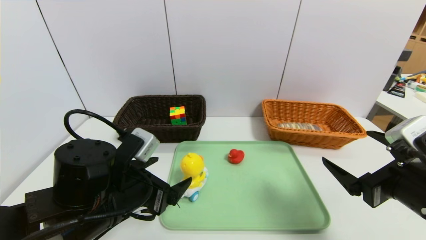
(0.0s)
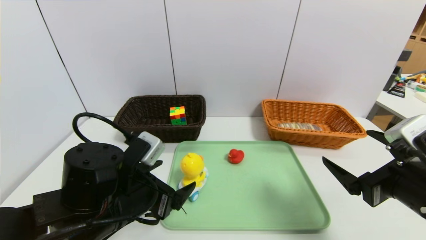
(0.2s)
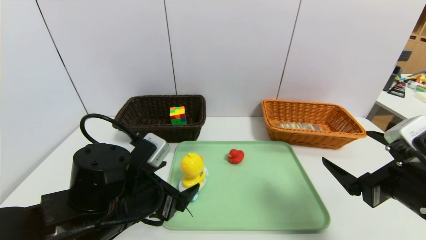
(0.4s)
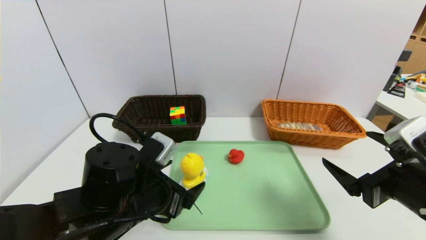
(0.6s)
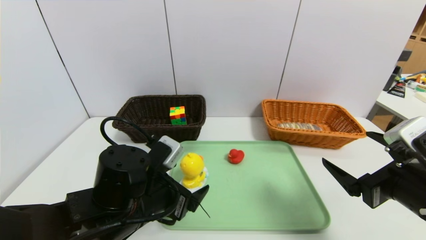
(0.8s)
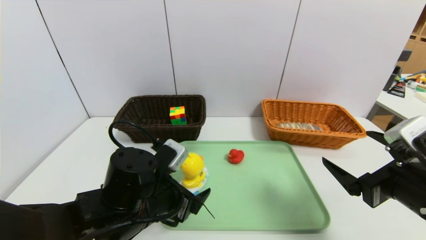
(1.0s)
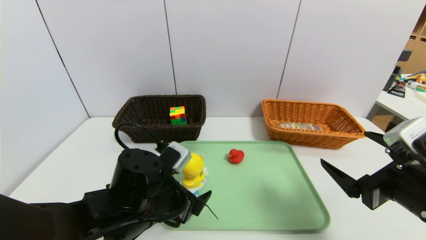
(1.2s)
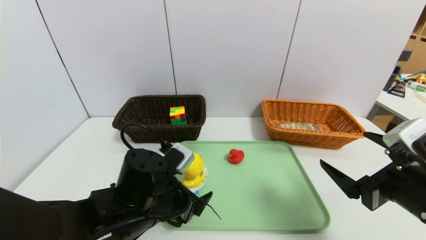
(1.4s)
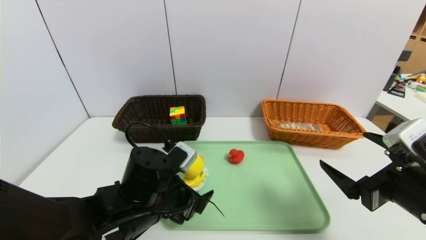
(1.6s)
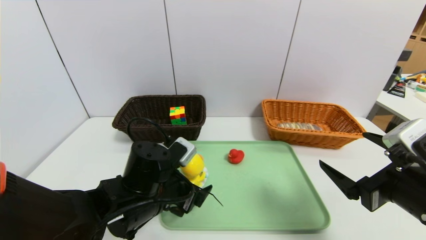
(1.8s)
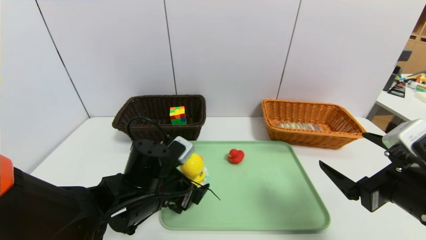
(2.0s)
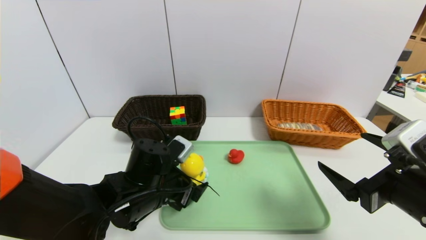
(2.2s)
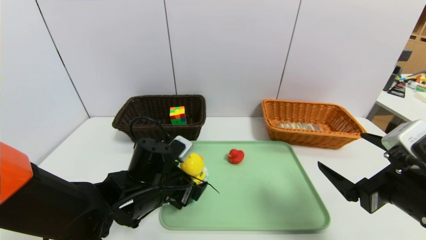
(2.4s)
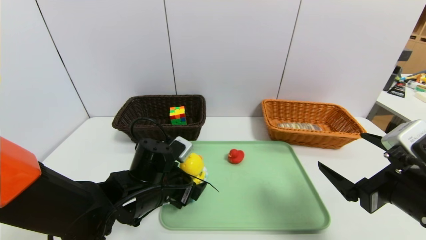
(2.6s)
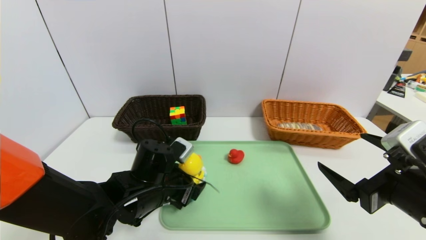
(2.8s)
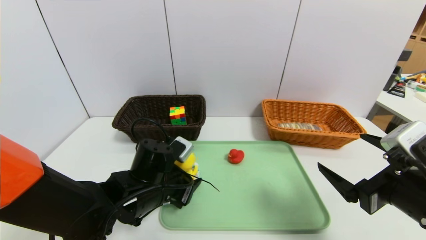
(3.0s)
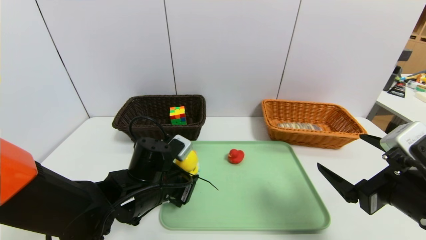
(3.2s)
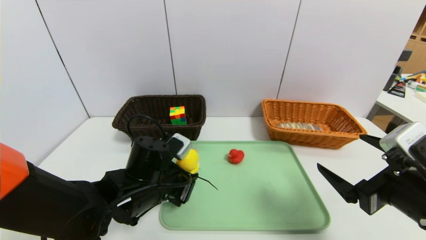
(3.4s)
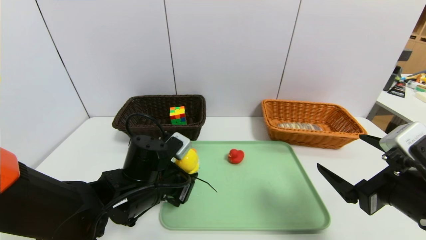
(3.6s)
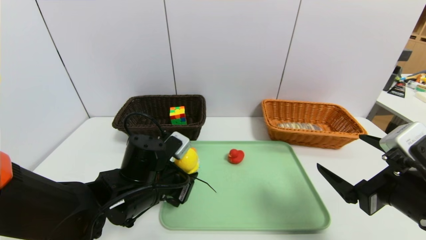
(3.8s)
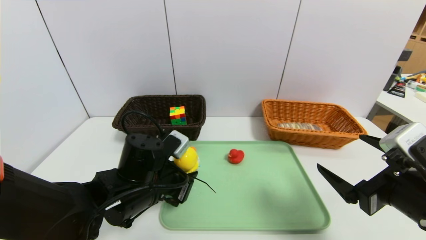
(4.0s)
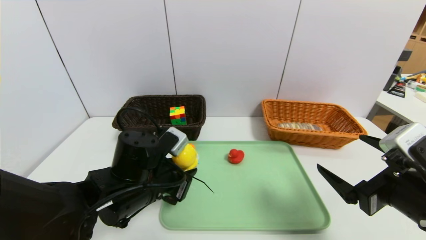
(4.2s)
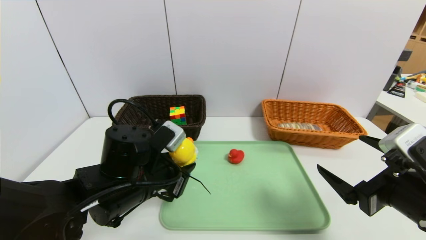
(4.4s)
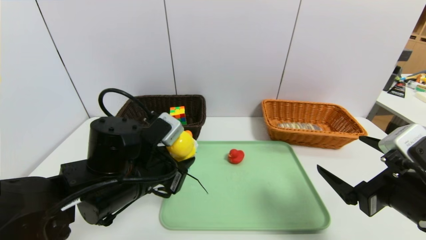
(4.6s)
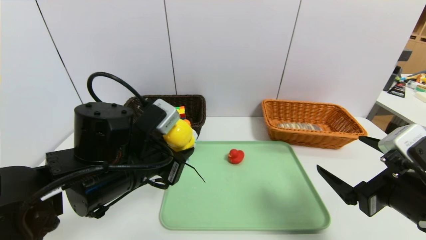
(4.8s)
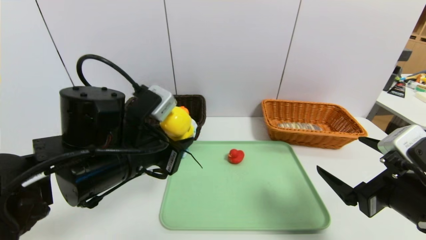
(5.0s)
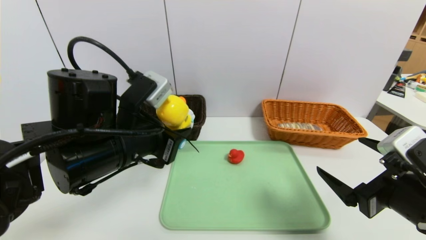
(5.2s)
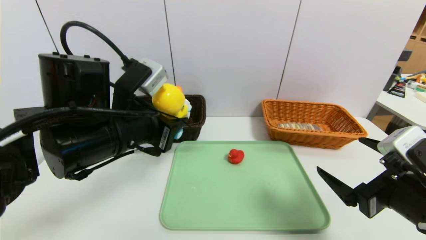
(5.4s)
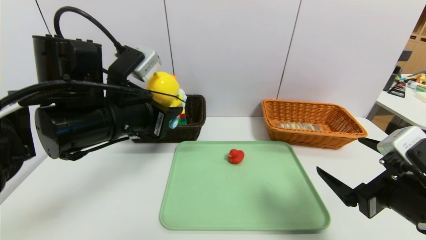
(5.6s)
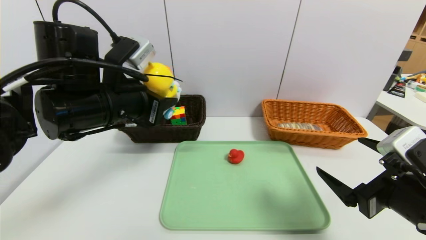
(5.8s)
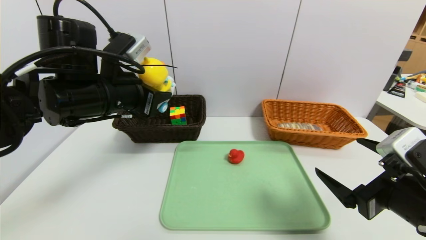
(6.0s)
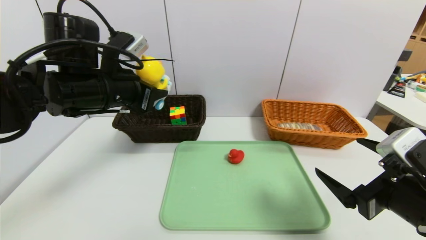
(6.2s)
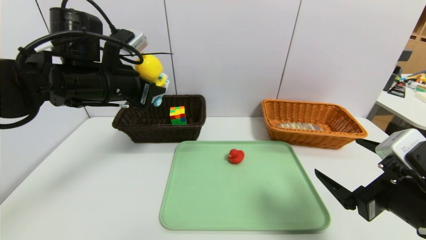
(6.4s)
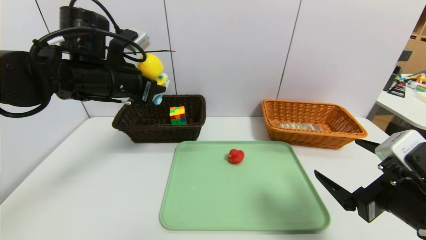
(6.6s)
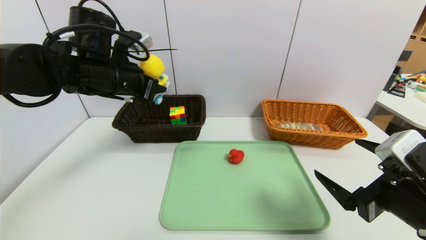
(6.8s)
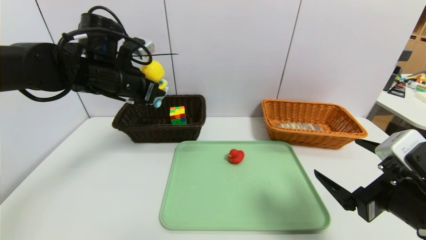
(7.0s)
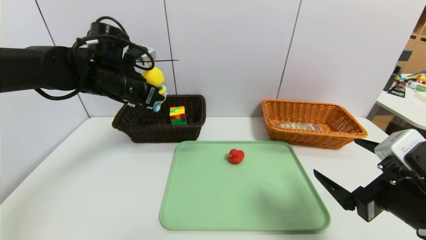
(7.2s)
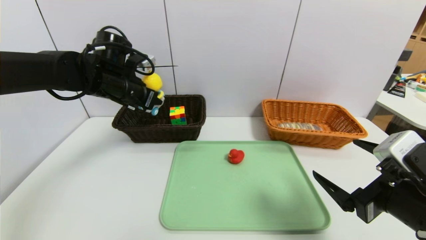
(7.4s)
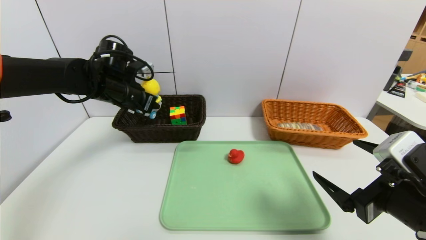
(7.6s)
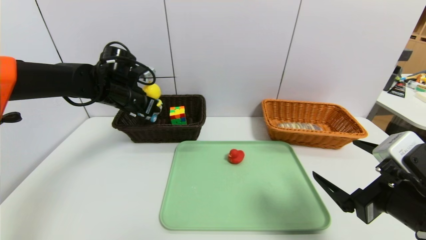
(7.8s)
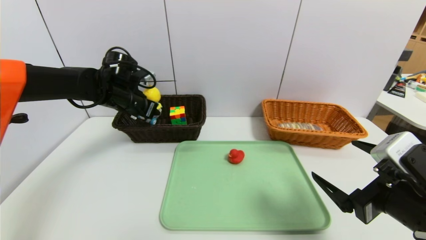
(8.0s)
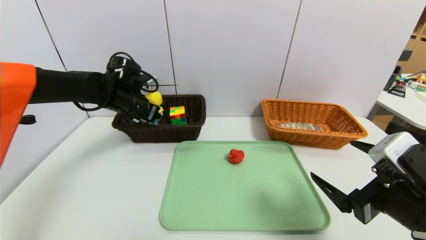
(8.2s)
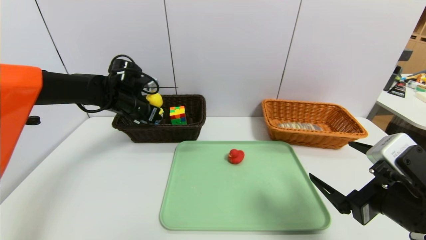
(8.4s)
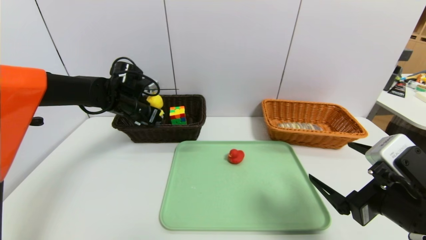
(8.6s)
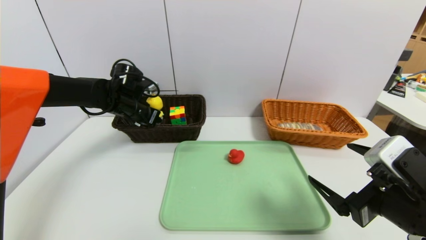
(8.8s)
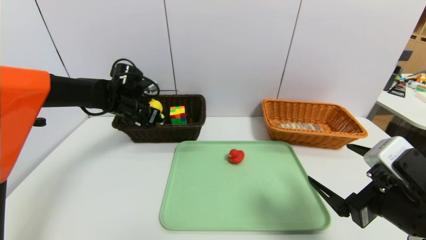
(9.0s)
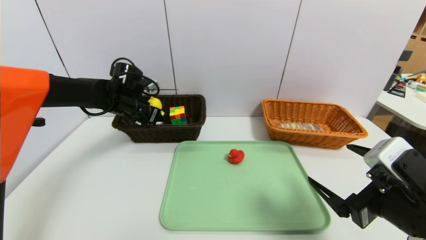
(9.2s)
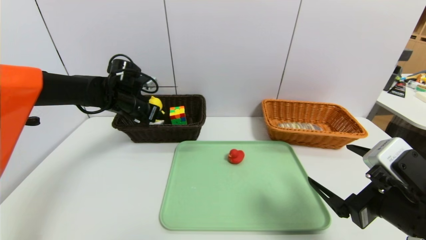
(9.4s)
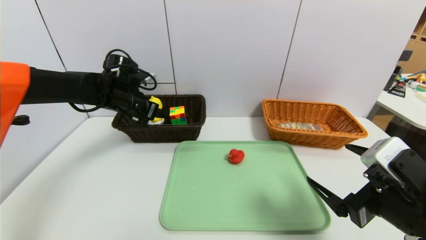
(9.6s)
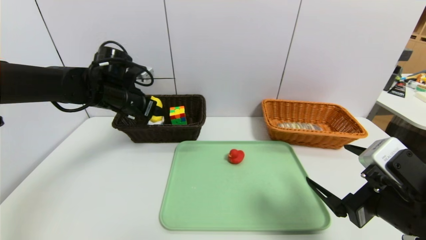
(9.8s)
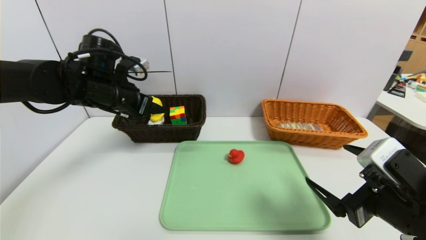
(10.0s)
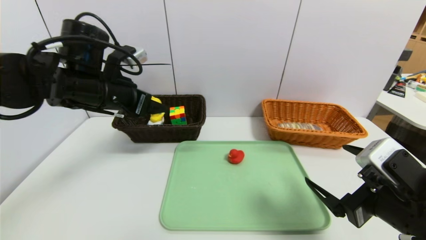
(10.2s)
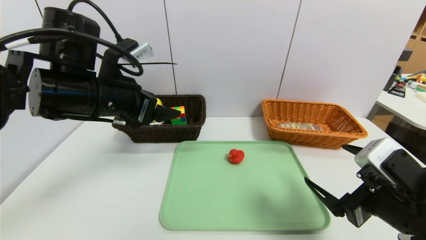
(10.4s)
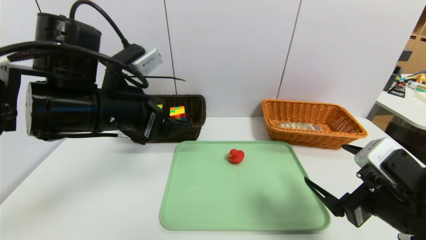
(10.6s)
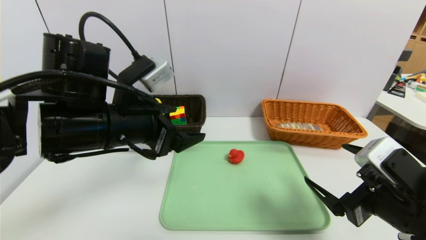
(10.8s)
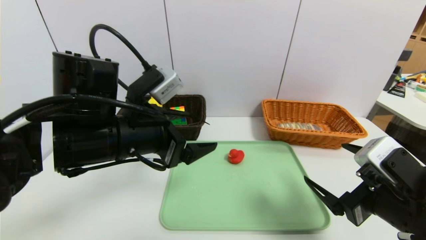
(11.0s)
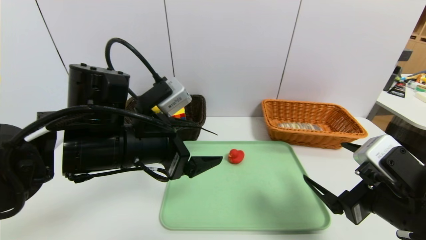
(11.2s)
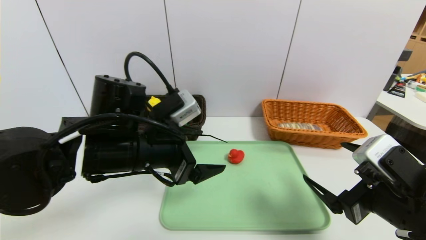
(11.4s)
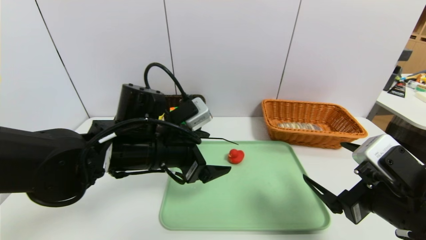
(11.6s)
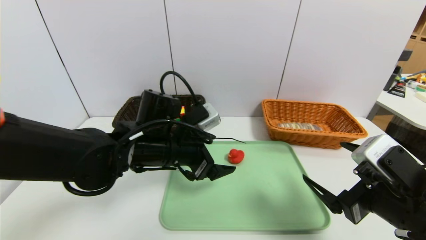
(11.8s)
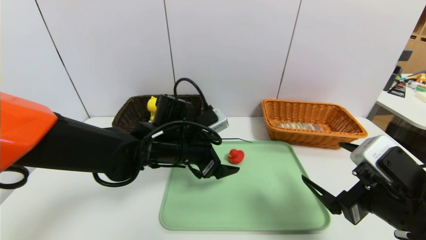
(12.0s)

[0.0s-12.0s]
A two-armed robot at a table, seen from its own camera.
Task of the whole recording: place the food in the right basket with the right gripper, and place the non food items in the left basket with the left gripper.
Step, 0.0s to 10.4s: Grasp the duck toys and put it in the left basket.
0.0s to 1.6s: The left gripper ends up some 5 cm from where it was.
1.6s to 3.0s: The left gripper closes its fingers.
3.0s to 4.4s: The left gripper ends up approximately 5 cm from where it was.
4.4s to 6.0s: The left gripper shifts roughly 15 cm upward and forward.
6.0s to 7.6s: The left gripper heads forward, covering some 15 cm.
7.6s to 9.0s: The left gripper is displaced downward by some 5 cm.
9.0s to 10.4s: The left gripper travels backward and upward by approximately 20 cm, and opens its fingers.
10.4s to 12.0s: The left gripper is displaced downward and to the right by some 15 cm.

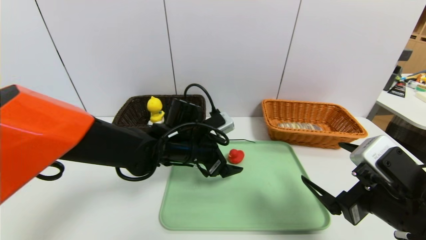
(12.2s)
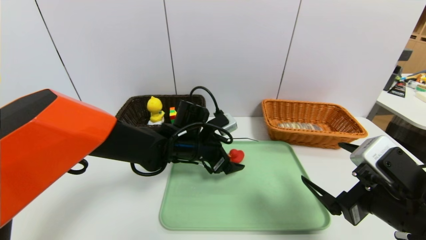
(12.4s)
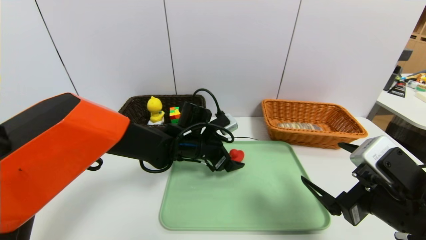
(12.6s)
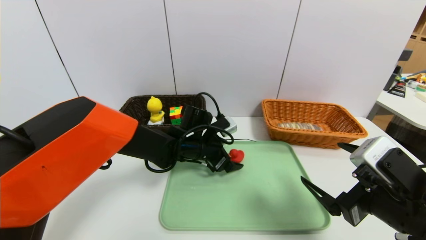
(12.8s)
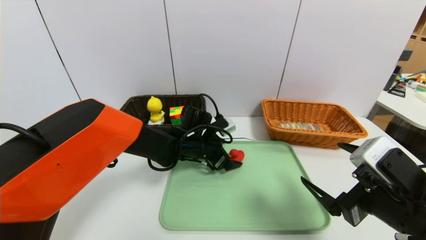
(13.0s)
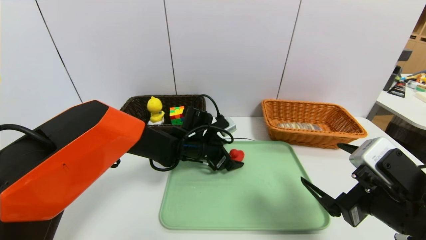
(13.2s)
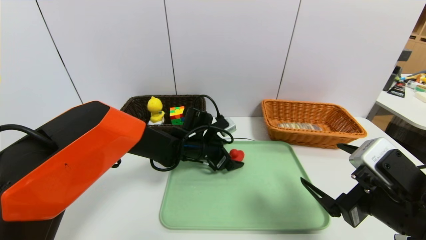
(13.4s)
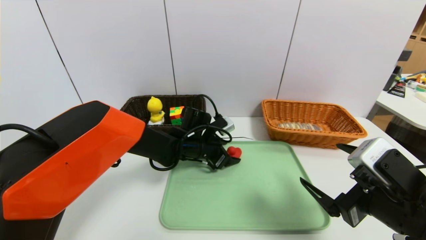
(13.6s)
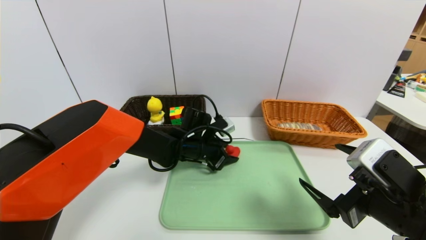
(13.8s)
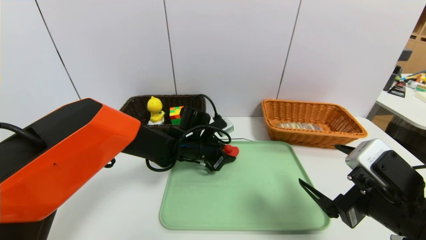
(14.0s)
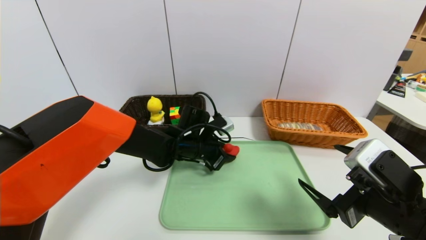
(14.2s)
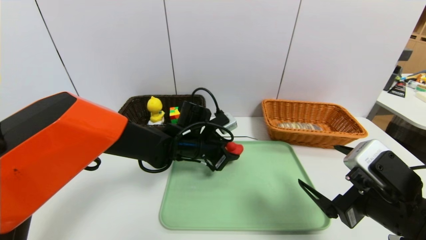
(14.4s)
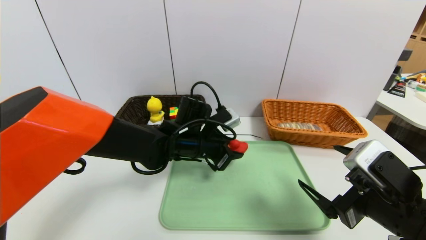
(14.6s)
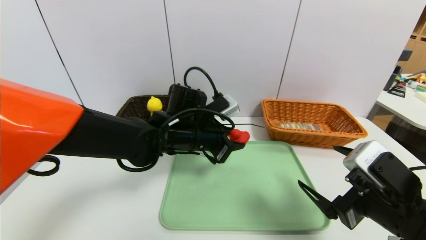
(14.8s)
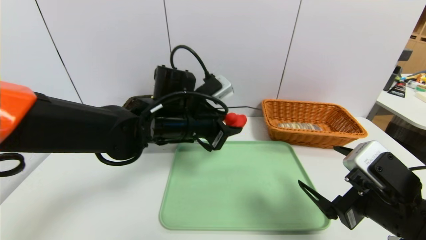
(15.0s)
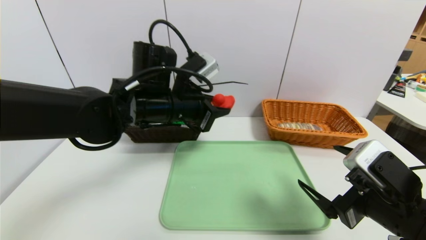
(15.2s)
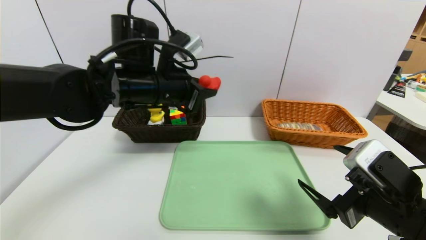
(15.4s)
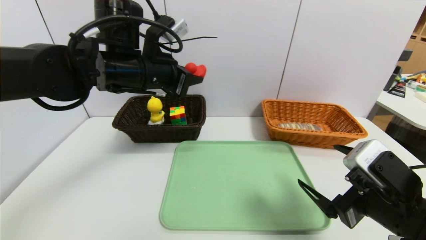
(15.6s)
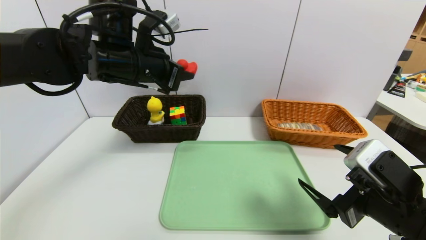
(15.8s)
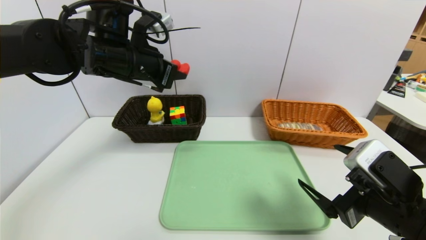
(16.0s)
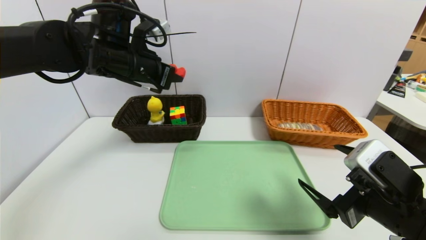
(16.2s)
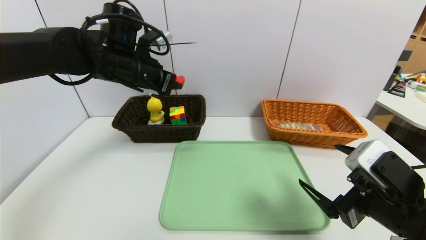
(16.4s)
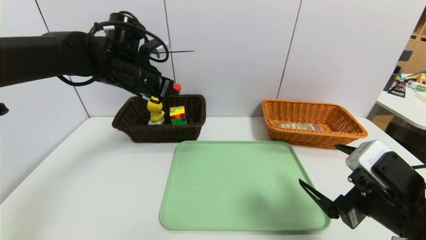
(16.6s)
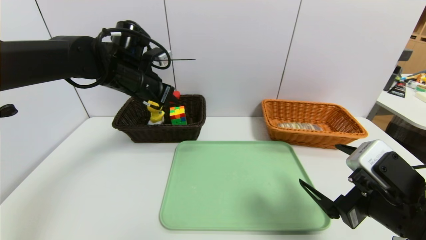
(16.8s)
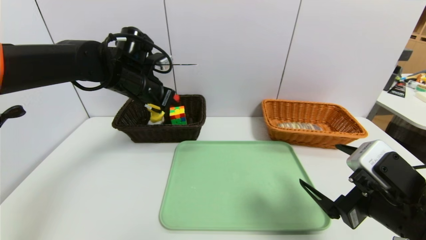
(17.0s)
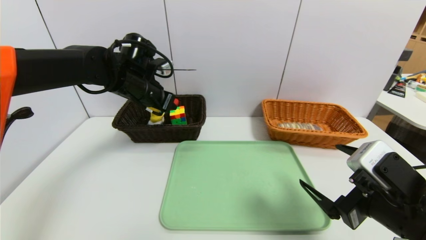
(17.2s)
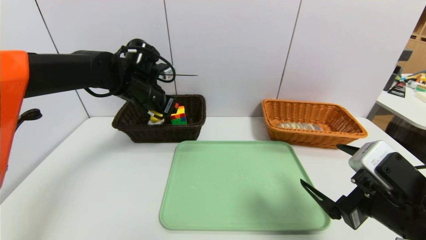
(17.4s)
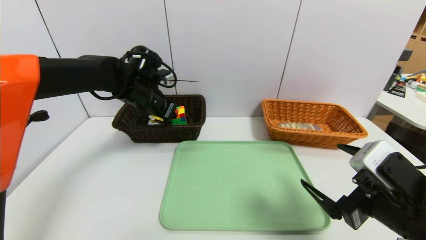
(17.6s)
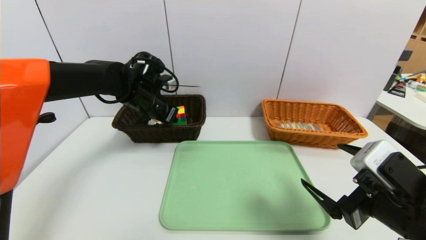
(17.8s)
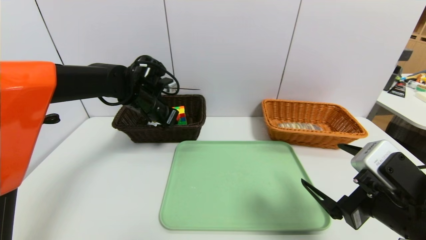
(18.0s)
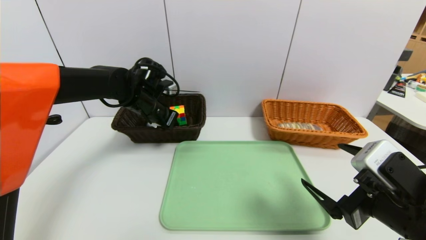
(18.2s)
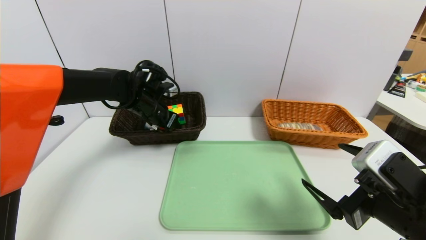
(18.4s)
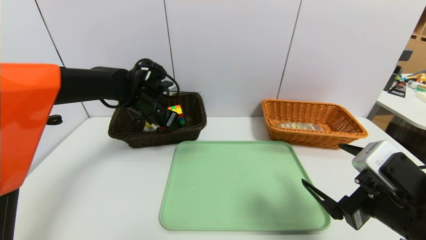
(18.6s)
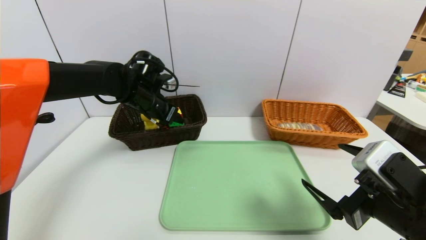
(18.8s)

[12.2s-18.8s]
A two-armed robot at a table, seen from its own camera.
Task of the whole recording: place the food in the right basket with the right gripper, and place the non food items in the left basket with the left gripper.
12.2s to 13.8s: The left gripper shifts about 10 cm forward and downward, and closes its fingers.
13.8s to 15.4s: The left gripper is displaced upward by roughly 20 cm.
15.4s to 17.2s: The left gripper travels forward and to the left by approximately 10 cm.
17.2s to 18.8s: The left gripper opens up.
